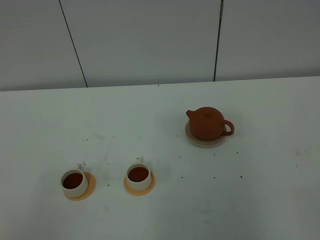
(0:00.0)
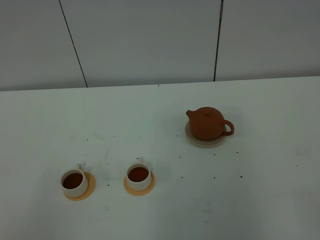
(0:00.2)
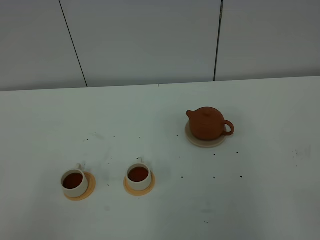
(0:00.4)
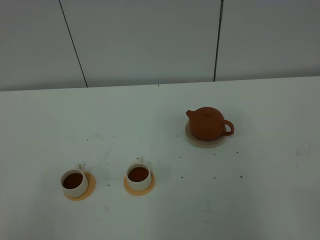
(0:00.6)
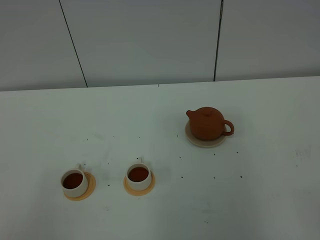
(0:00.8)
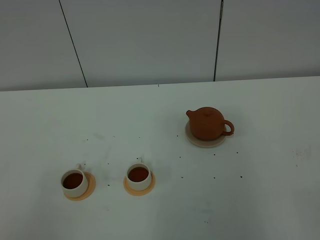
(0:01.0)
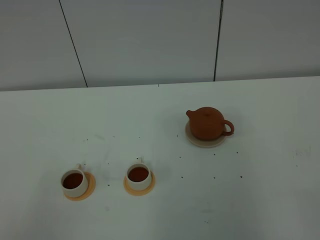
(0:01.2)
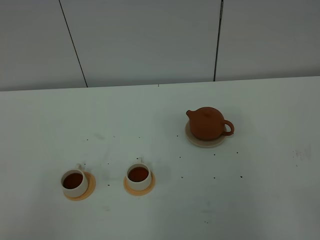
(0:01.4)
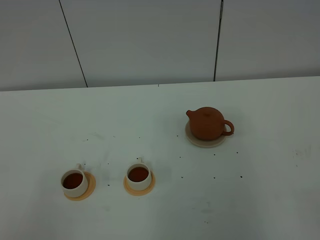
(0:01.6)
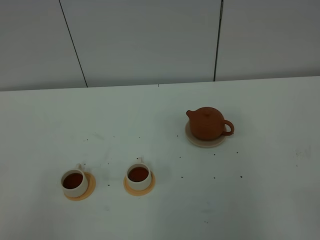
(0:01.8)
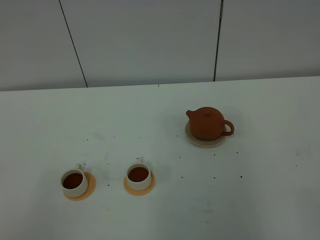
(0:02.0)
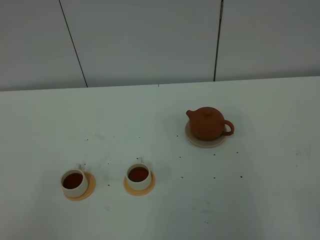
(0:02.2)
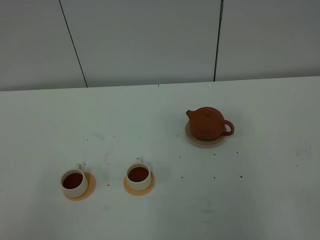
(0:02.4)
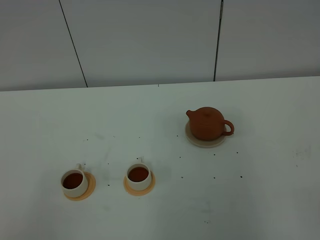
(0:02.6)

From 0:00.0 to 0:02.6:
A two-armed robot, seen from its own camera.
Task of the whole recording: grasp the brown teapot and pour the tea into the two white teacups one by one, put the brown teapot back in its original place.
From 0:00.0 to 0:02.6: The two grippers keep their place.
